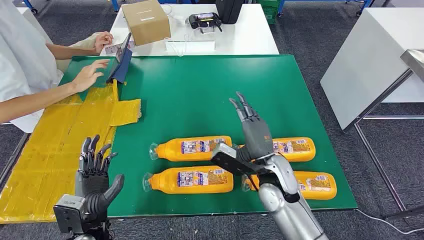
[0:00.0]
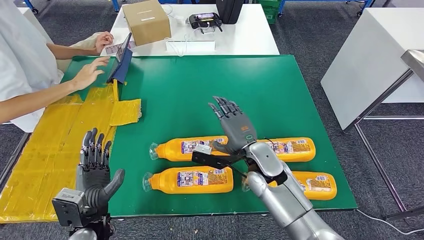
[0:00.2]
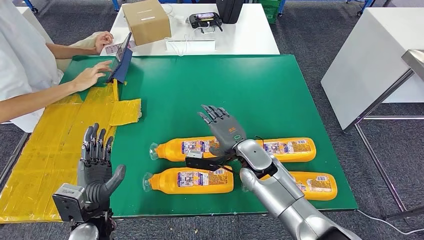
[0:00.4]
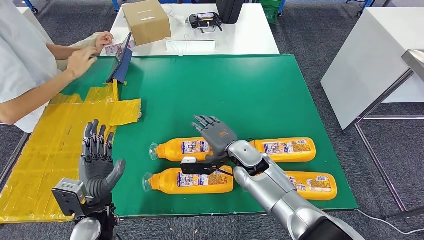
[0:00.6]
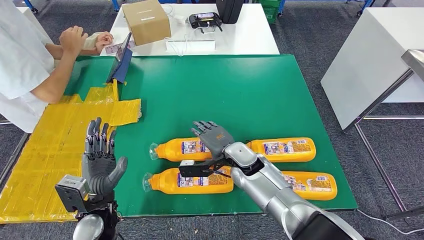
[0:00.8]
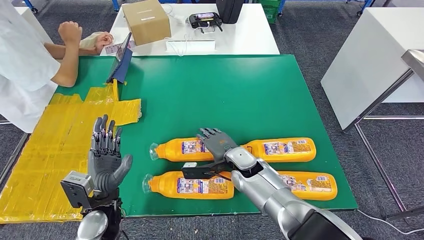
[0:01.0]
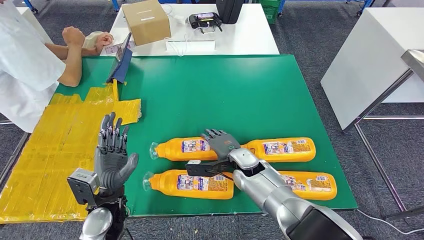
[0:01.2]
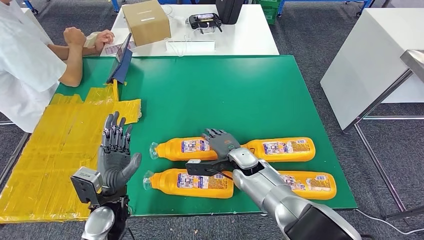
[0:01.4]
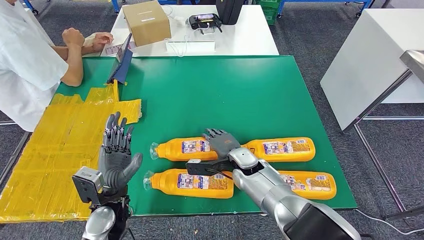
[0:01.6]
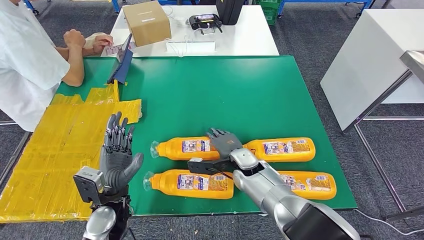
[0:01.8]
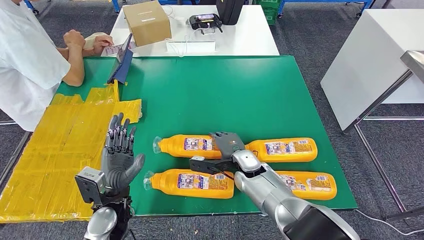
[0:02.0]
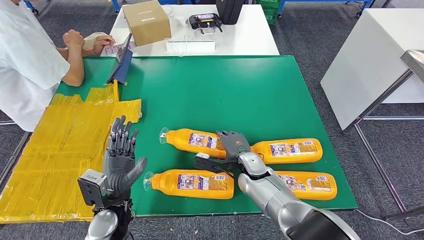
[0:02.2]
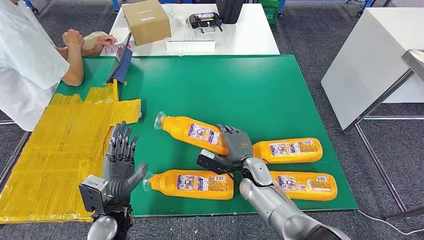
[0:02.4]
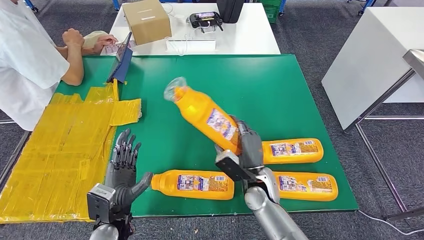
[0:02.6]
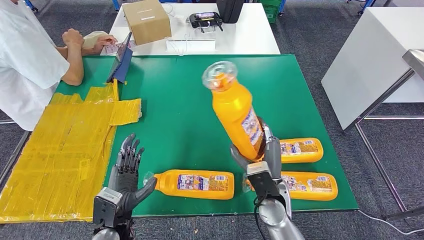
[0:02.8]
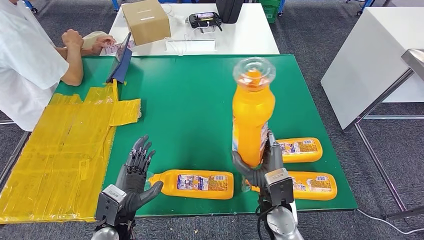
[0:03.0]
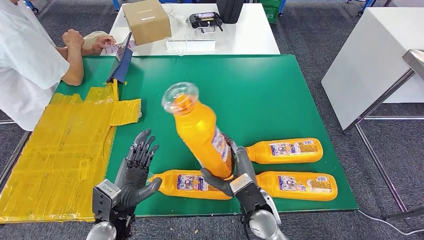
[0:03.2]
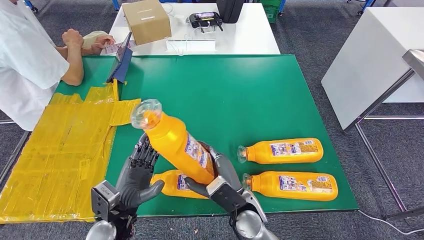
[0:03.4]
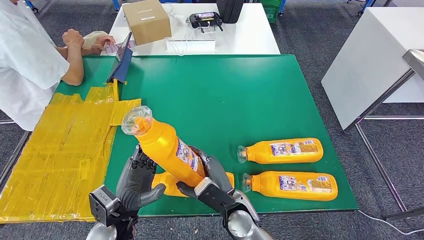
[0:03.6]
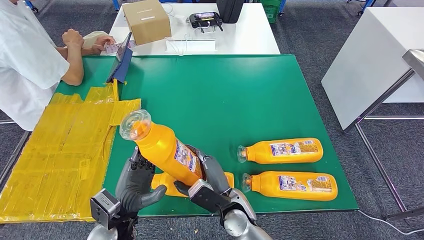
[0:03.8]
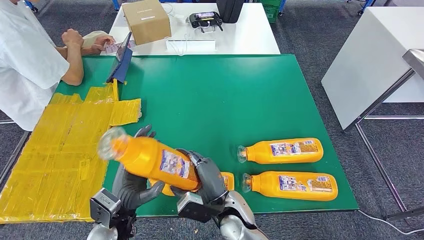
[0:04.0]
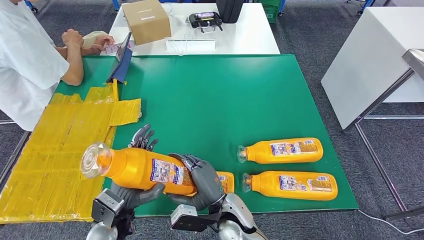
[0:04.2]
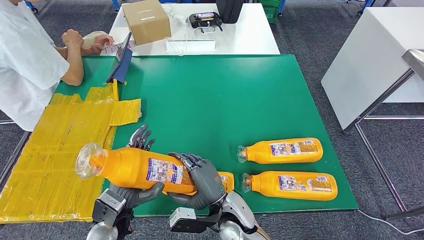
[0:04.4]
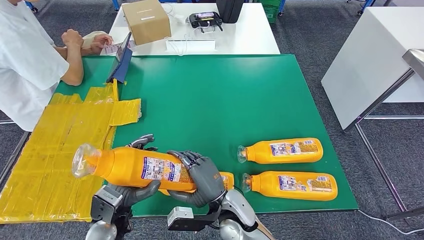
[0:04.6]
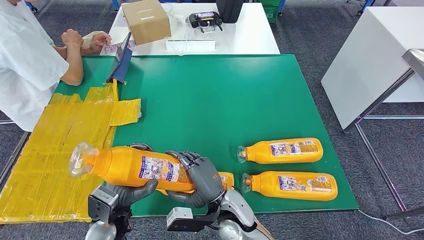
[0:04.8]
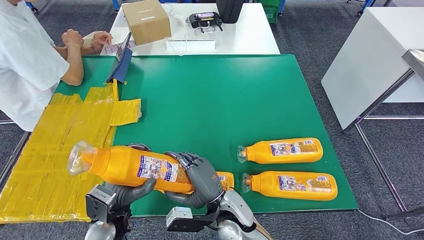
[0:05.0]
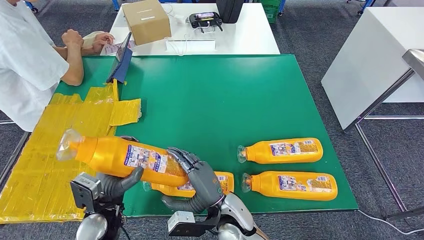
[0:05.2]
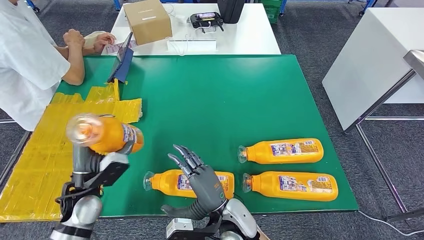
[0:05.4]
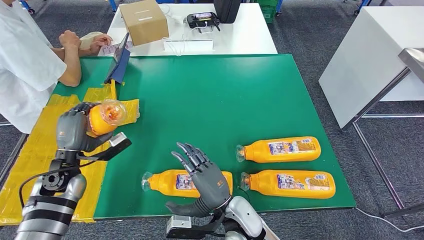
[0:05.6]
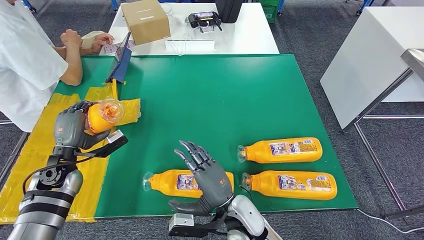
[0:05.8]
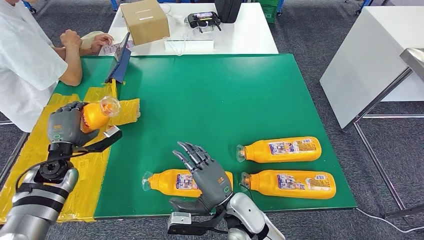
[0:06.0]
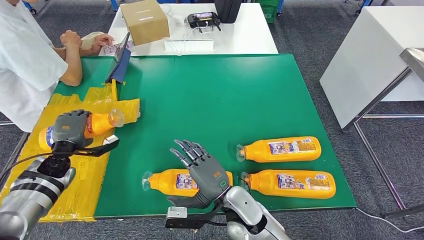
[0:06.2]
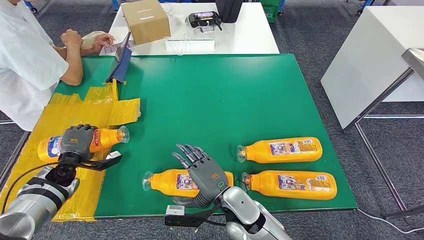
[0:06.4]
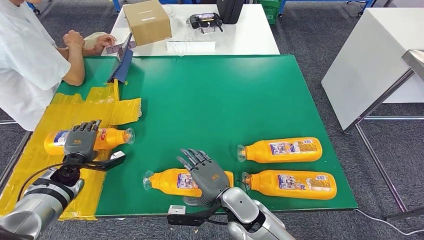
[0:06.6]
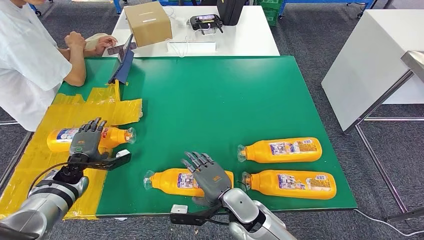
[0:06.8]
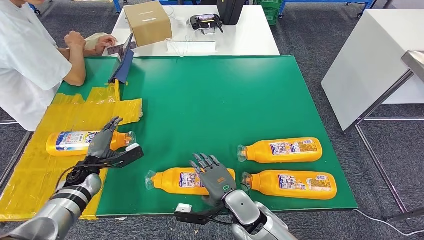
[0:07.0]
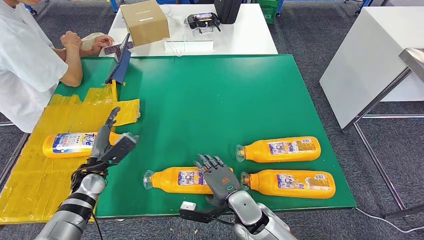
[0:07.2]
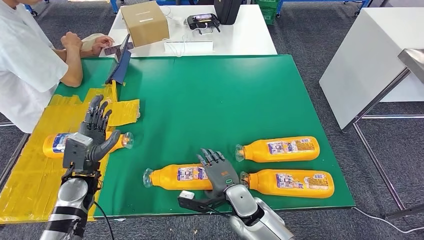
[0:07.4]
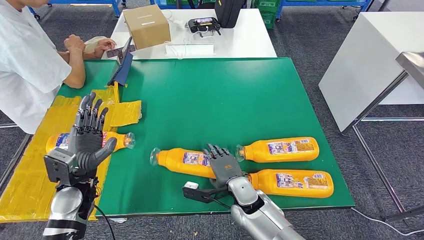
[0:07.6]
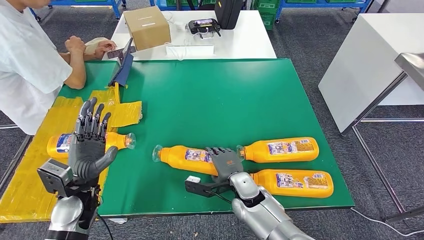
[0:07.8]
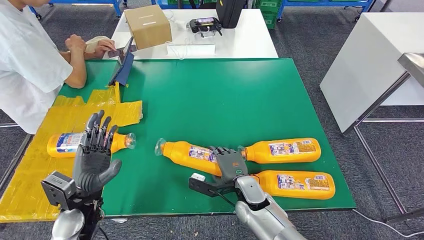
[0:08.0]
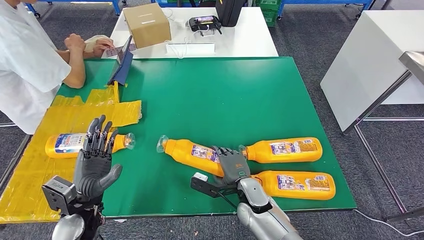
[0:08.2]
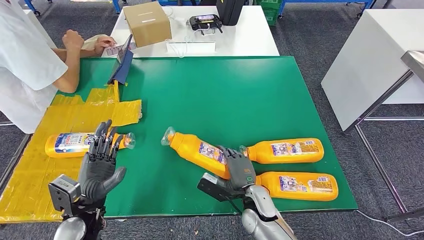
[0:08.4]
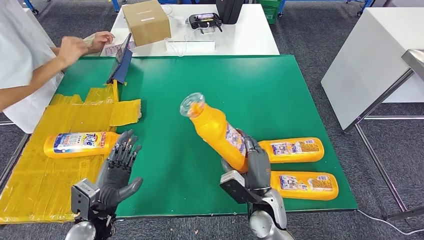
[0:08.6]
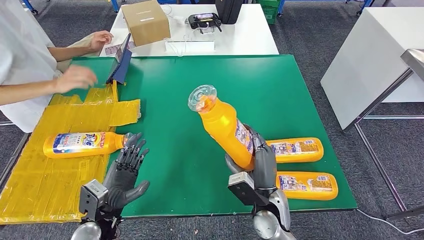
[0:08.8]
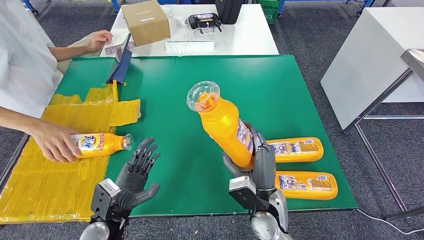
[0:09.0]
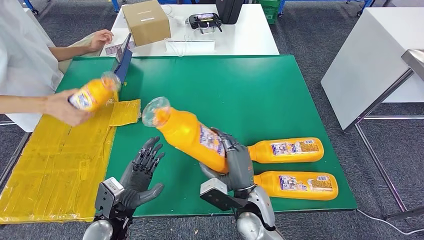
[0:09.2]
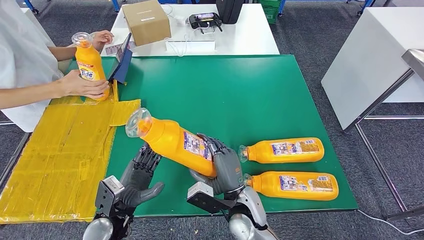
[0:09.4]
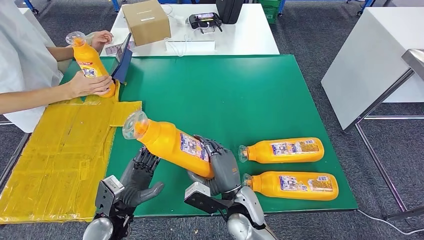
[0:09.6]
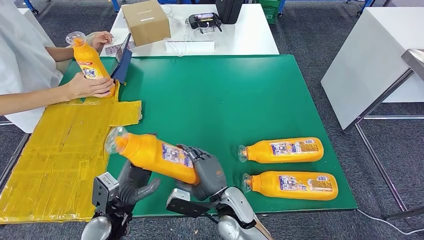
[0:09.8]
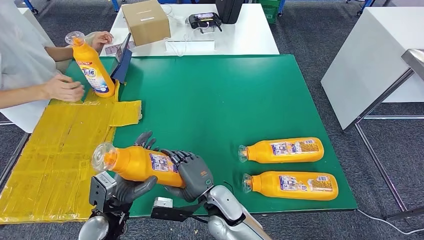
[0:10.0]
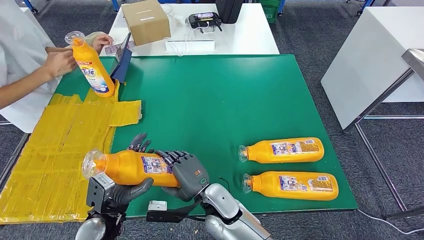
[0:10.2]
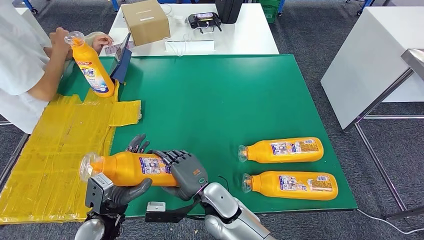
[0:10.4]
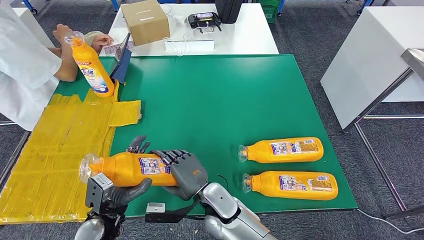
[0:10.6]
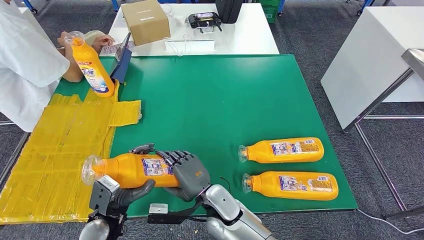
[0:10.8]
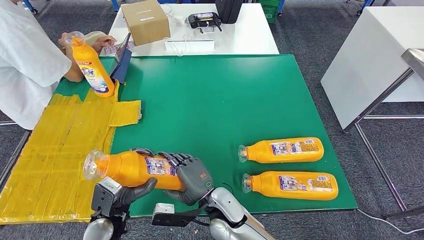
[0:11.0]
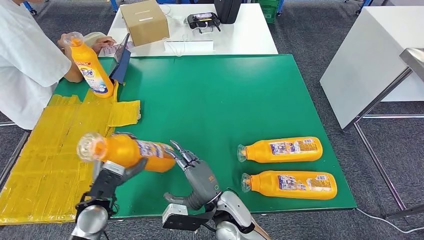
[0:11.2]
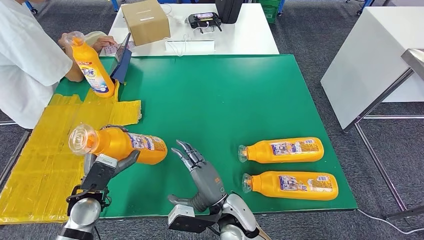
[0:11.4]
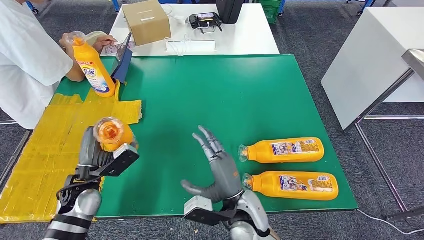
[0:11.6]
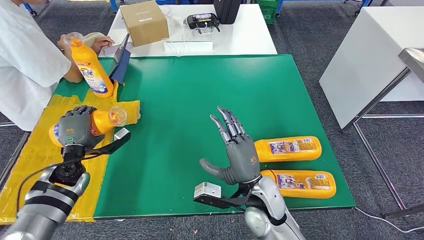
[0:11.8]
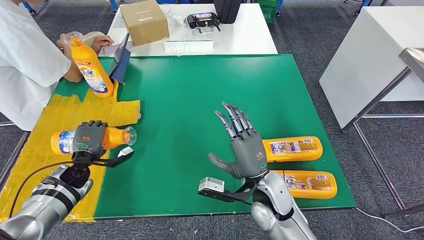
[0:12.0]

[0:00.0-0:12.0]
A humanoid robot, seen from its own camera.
Step, 0:00.0 to 0:05.2: Take the fast-moving consumer goods bottle from the table.
Step, 0:05.6 to 0:07.2: Flip the fast-moving consumer goods bottle to the front side.
Step, 0:07.4 to 0:10.4: Pick up the fast-moving consumer goods bottle from the table.
0:03.0 to 0:04.4: The right hand goes about 10 cm to the left.

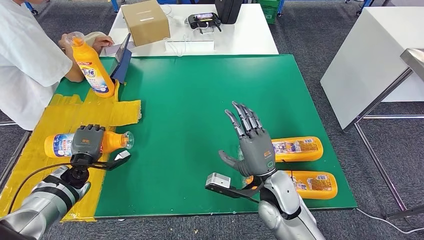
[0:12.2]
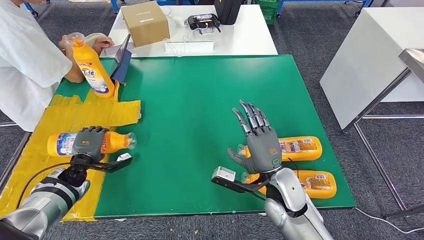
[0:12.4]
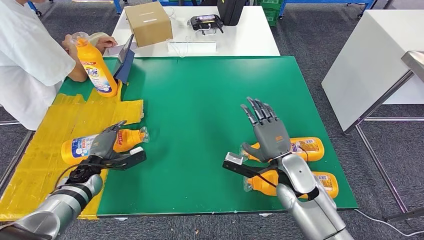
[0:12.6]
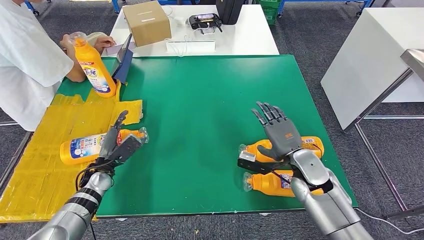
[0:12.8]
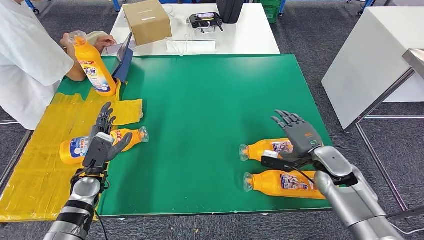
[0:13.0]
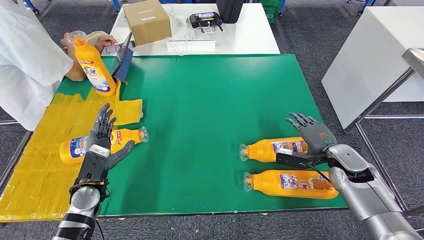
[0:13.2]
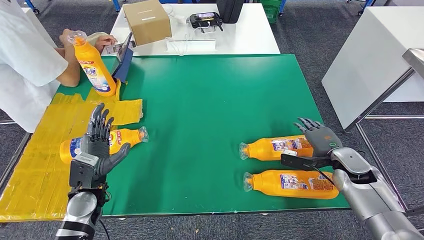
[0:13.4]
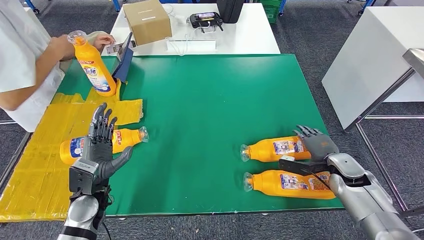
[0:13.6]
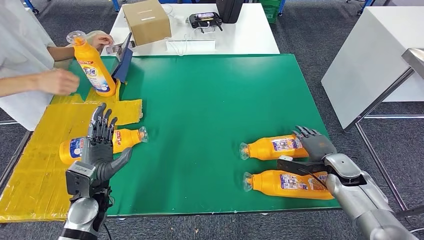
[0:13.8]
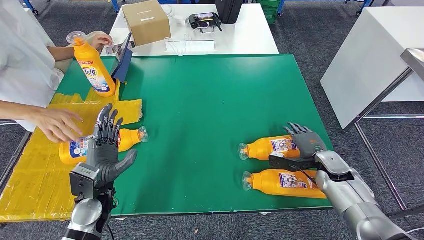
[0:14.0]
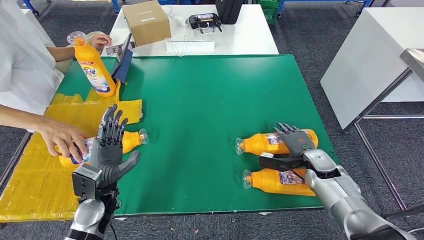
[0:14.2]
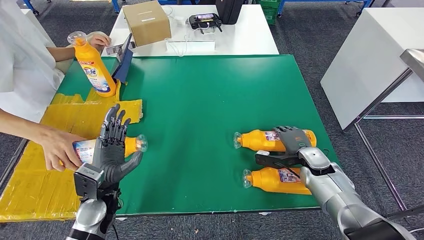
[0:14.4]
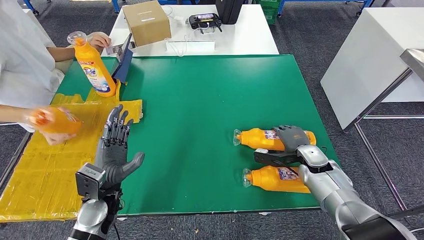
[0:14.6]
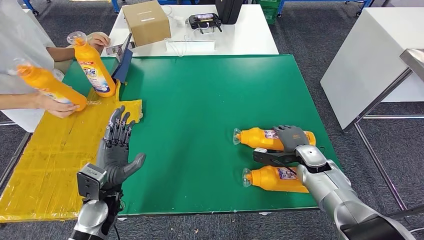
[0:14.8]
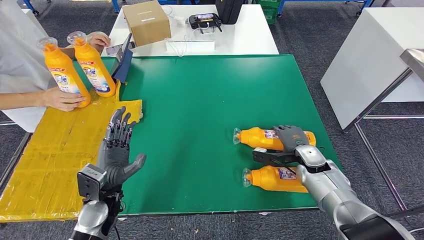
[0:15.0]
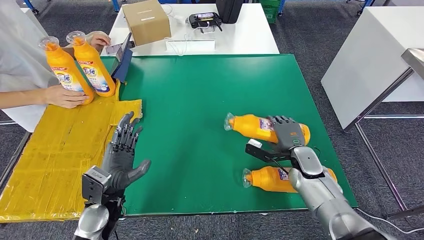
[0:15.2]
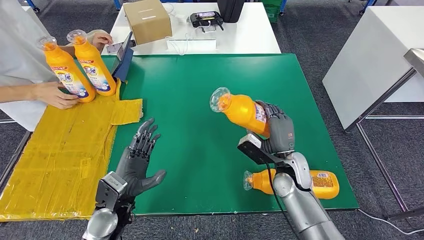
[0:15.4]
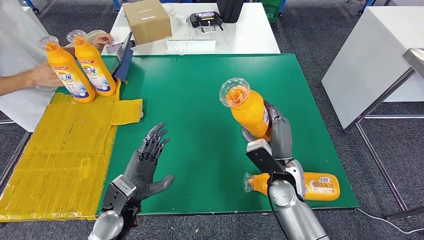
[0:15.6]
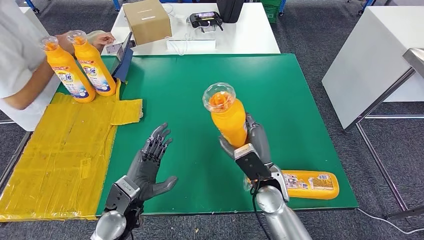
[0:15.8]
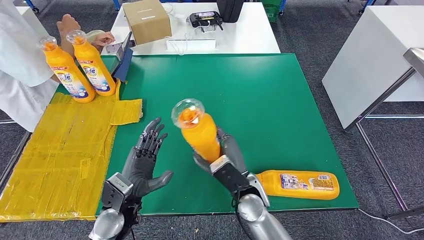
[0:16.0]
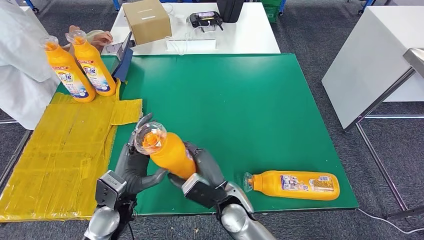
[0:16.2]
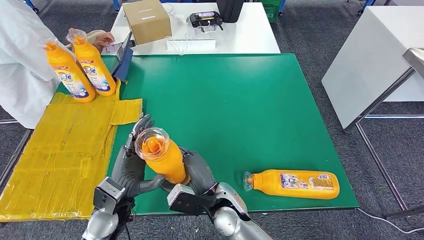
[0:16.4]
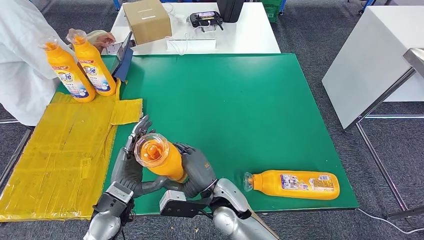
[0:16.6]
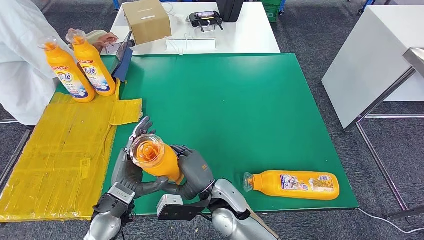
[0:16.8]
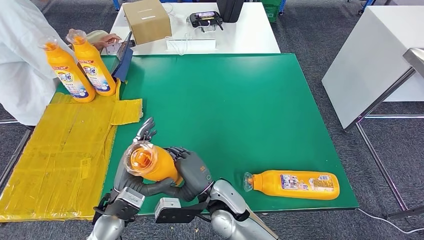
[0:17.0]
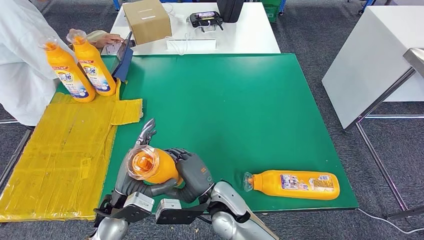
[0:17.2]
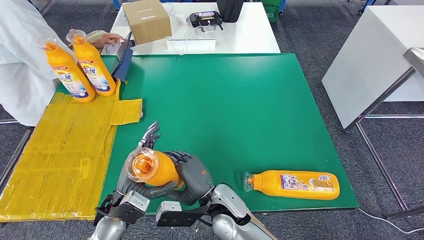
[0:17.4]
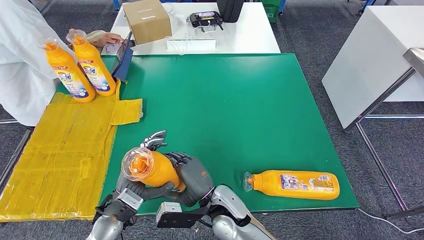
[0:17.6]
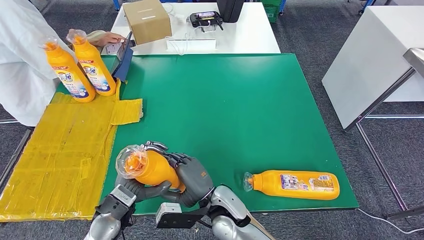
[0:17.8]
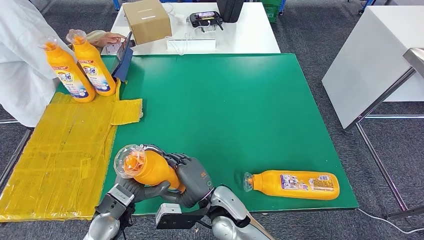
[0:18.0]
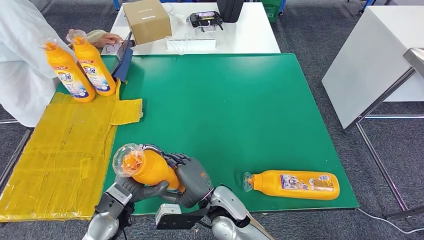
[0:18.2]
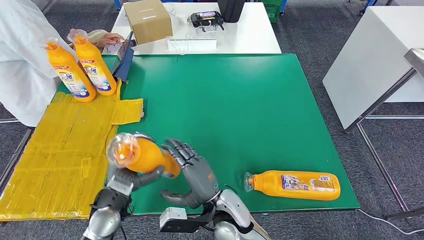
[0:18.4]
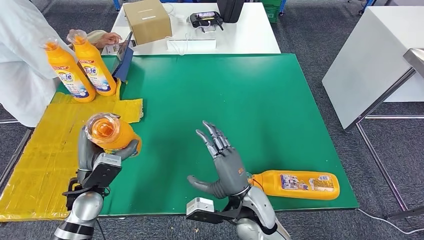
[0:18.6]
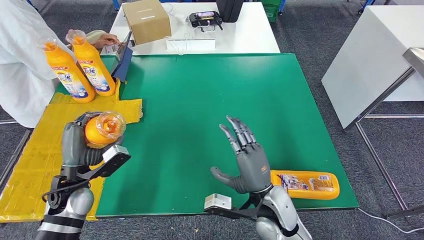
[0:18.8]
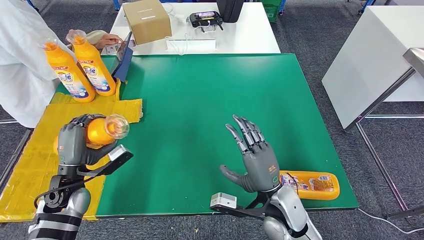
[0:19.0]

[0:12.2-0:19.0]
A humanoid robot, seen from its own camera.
Step, 0:12.2 to 0:14.2: Flip the fast-moving consumer goods bottle to the front side.
Step, 0:14.4 to 0:17.4: Pick up the fast-moving consumer goods bottle from the table.
0:17.6 to 0:19.0: The right hand travels to the right by roughly 15 cm, while the left hand moves to the left and forward, some 15 cm.
